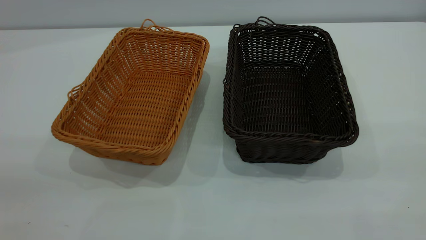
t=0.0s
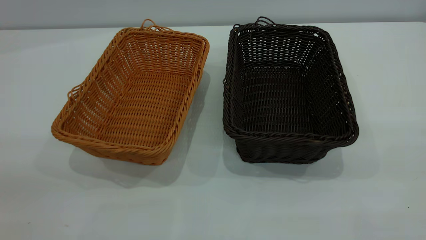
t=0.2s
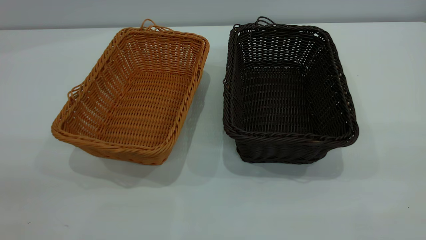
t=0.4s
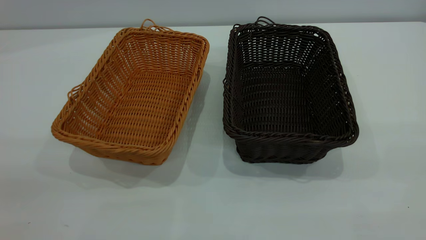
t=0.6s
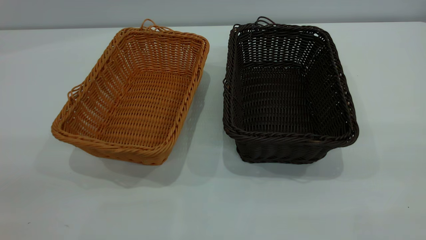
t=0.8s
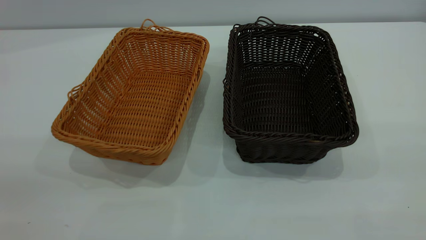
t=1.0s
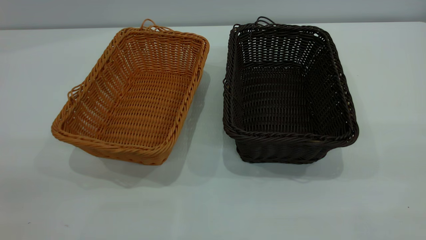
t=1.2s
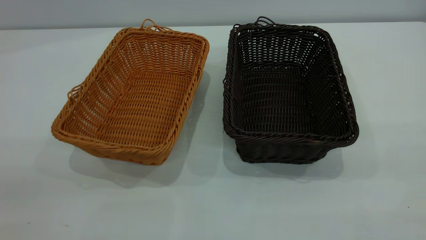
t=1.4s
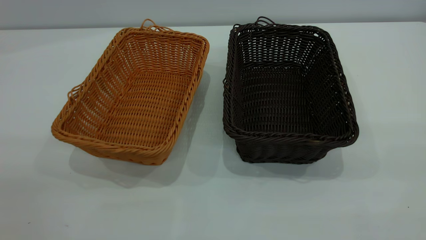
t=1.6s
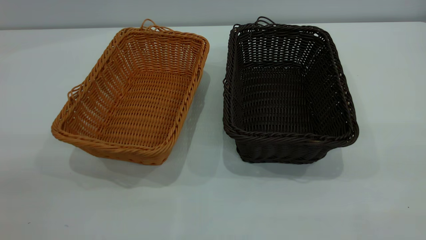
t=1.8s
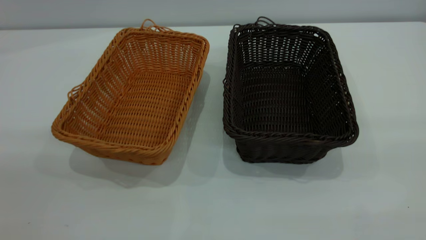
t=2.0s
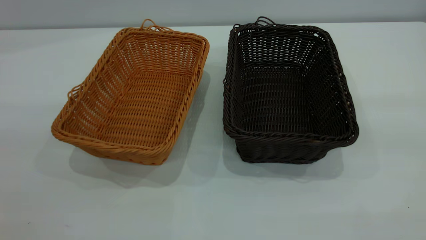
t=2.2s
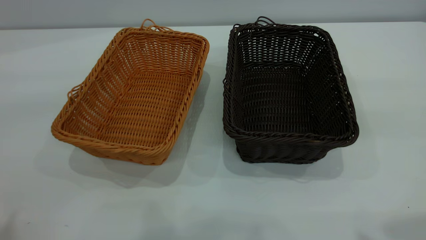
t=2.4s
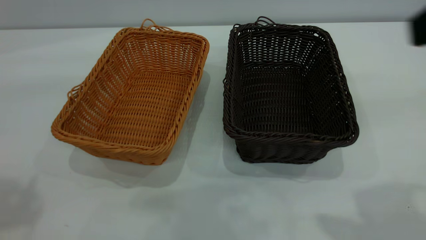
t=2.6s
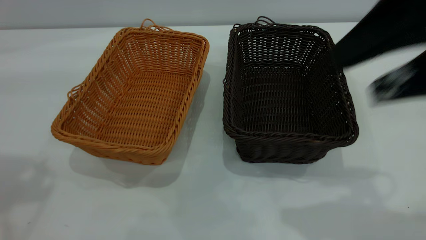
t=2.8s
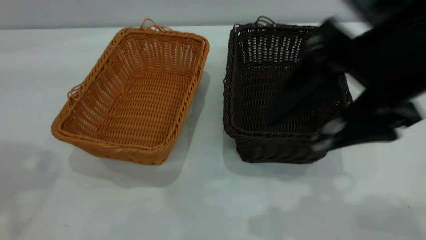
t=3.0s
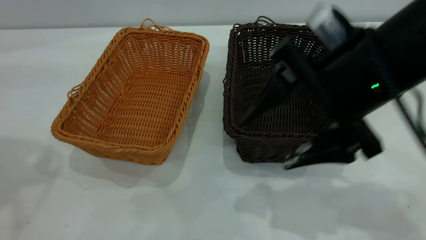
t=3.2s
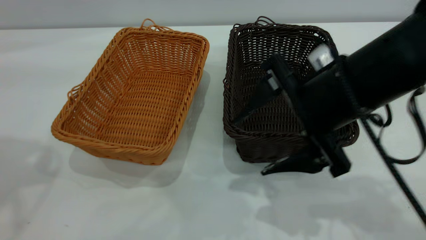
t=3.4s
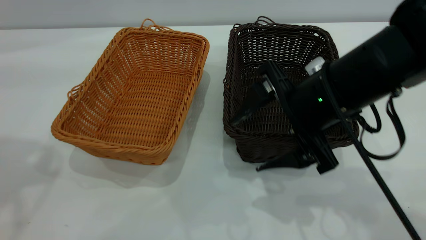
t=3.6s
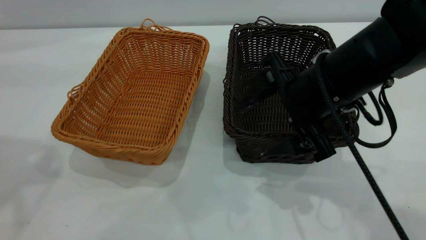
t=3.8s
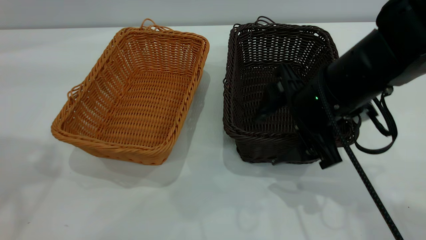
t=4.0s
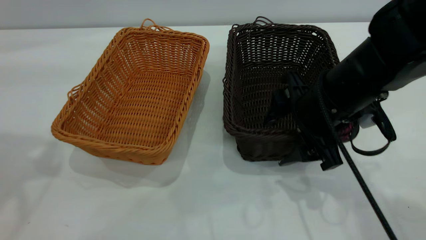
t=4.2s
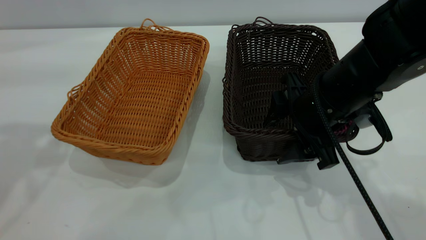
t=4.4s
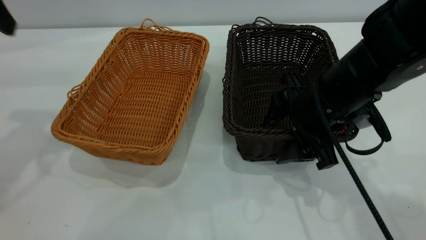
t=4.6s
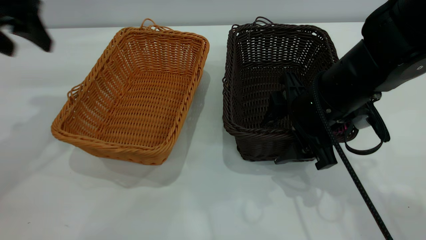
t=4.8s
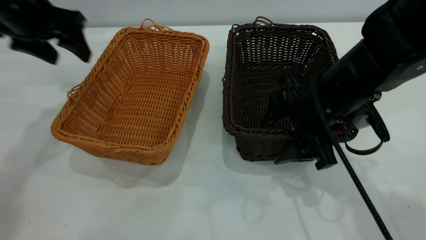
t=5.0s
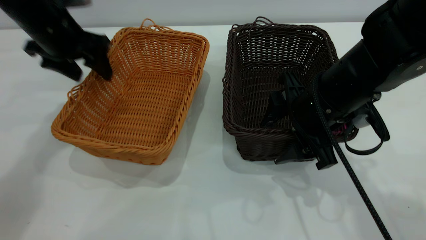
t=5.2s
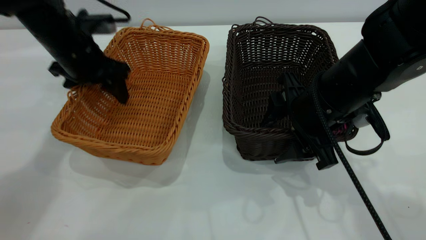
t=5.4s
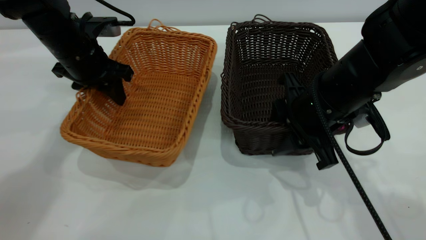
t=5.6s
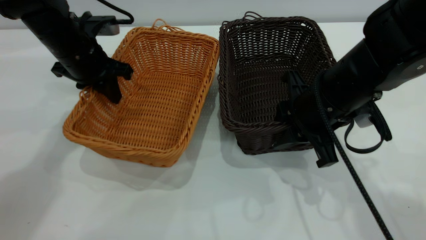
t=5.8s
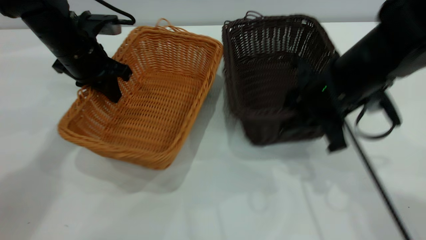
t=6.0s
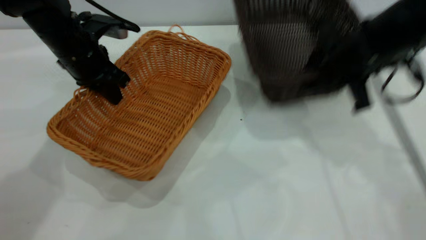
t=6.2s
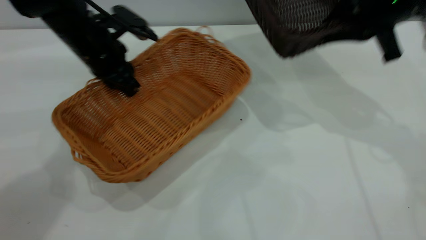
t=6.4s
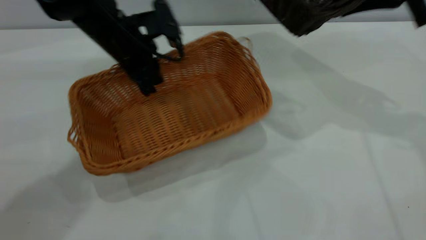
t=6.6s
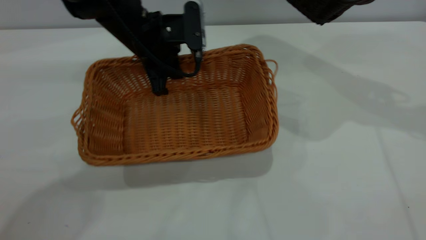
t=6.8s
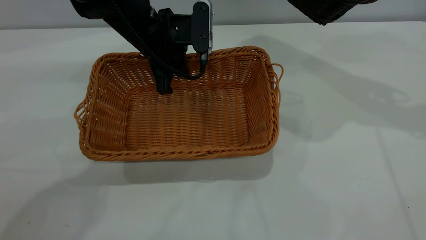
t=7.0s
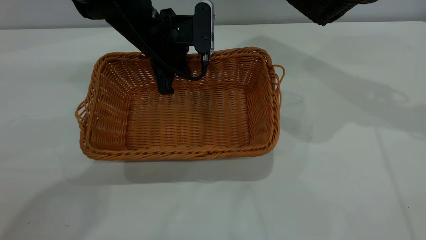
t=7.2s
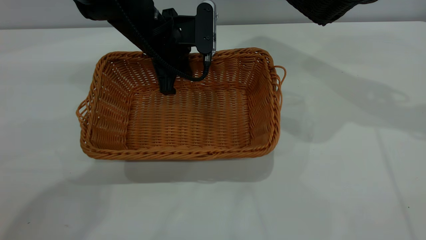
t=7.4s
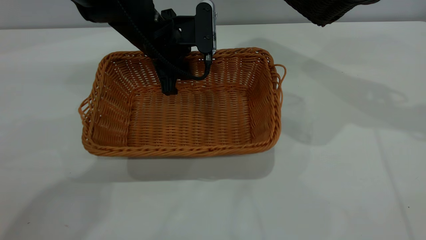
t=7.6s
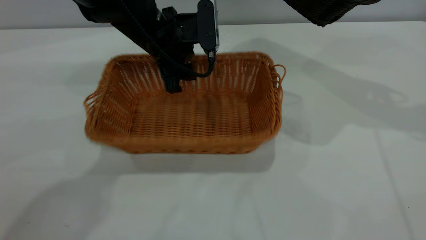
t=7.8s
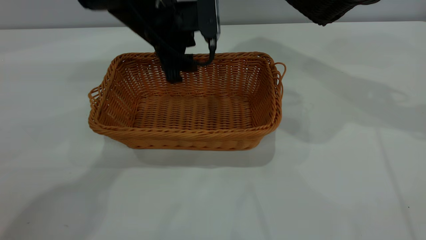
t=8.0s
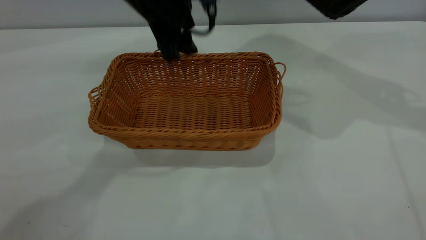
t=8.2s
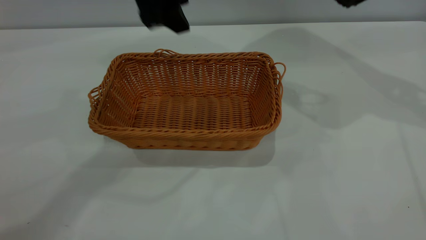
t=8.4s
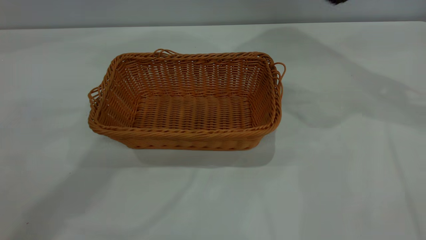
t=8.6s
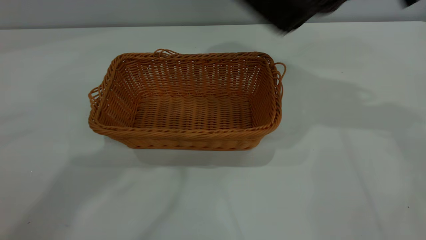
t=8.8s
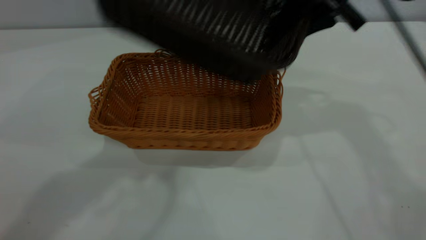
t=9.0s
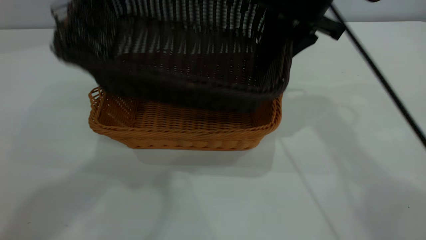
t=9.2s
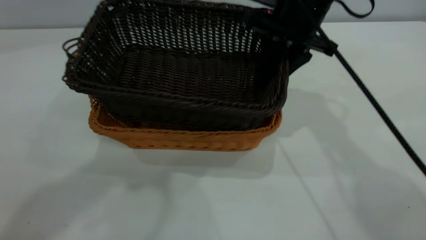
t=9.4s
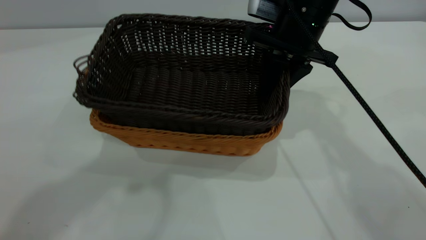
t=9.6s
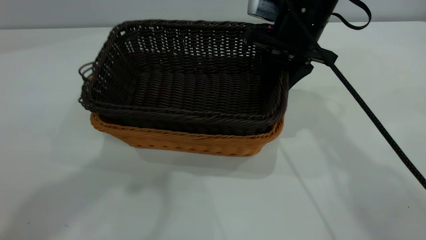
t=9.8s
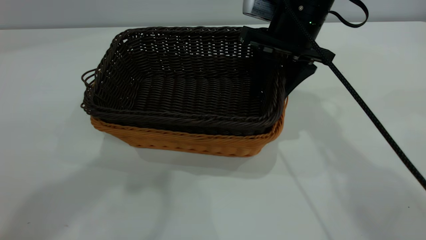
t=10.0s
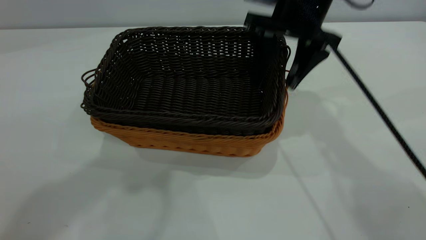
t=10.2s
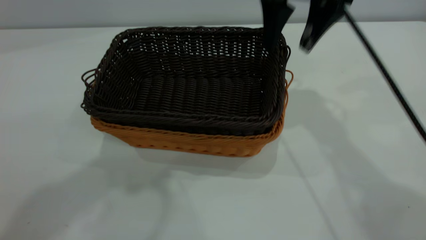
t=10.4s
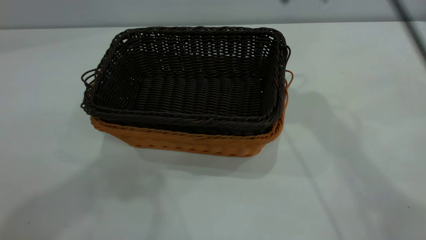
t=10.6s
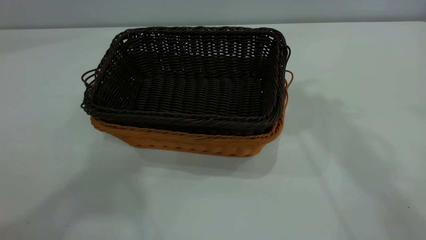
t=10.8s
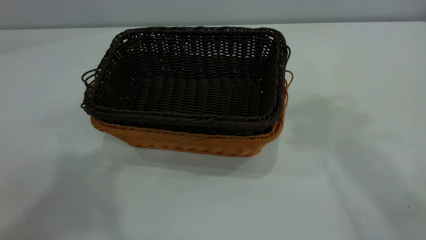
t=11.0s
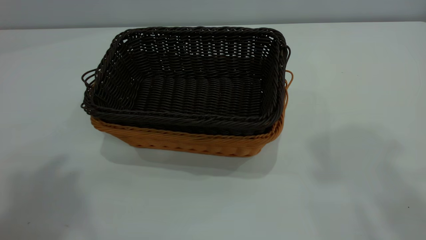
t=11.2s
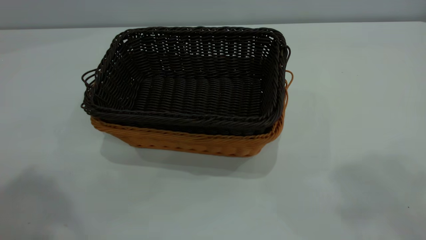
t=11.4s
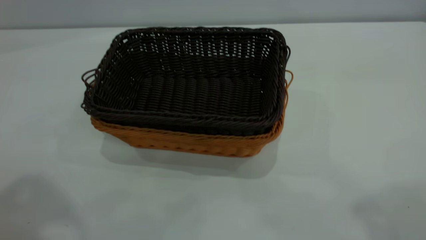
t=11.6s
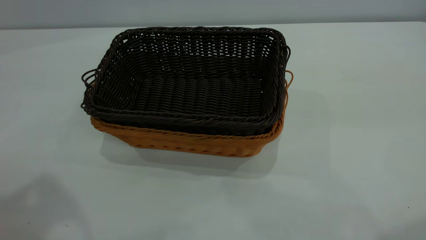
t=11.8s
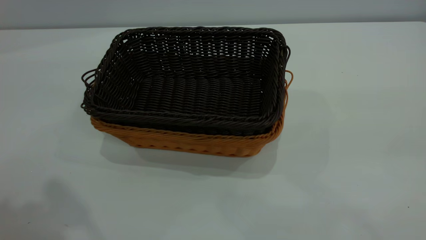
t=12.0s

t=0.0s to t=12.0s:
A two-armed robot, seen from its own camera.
Task of the whole recording: the left gripper grasp the brown basket and place it in the center of the table, the right gripper grasp the black basket and place it inside the brown one.
Step, t=0.0s to t=6.0s: Pick up the light basket with the right gripper.
Step, t=6.2s to t=8.2s: Place the light-colored basket in the center.
Step, t=8.4s to t=10.2s: Place the dark basket on top of the light basket.
t=0.0s to t=1.6s: The two grippers keep their place.
t=1.6s to t=3.0s: The right gripper goes some 30 cm forward, to the left and downward.
t=3.0s to t=4.4s: The right gripper is displaced downward and forward by about 15 cm; the left gripper changes place by roughly 5 cm.
t=4.4s to t=6.0s: The right gripper closes its fingers; the left gripper shifts roughly 25 cm downward, forward and to the right, and closes.
t=6.0s to t=7.6s: The left gripper moves to the right, about 15 cm, and opens its fingers. Meanwhile the right gripper shifts about 20 cm upward, to the right and forward.
t=7.6s to t=9.0s: The left gripper is displaced upward by roughly 35 cm; the right gripper heads to the left, covering approximately 15 cm.
t=9.0s to t=10.4s: The right gripper moves some 5 cm downward and comes back, and opens.
t=10.4s to t=12.0s: The right gripper travels backward and to the right by roughly 35 cm. Meanwhile the left gripper heads backward and to the left, covering roughly 15 cm.

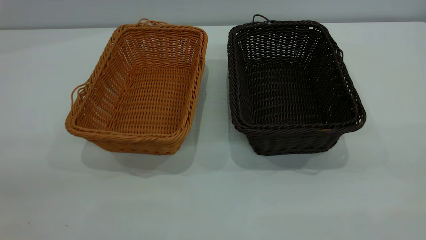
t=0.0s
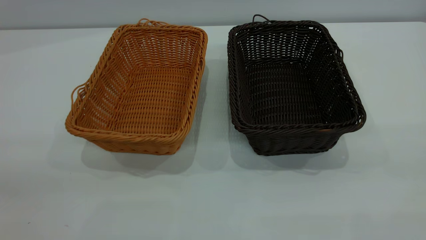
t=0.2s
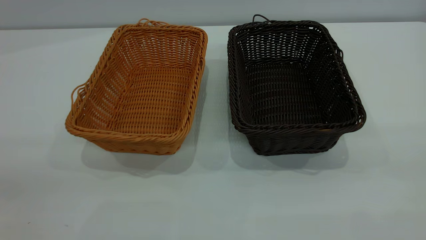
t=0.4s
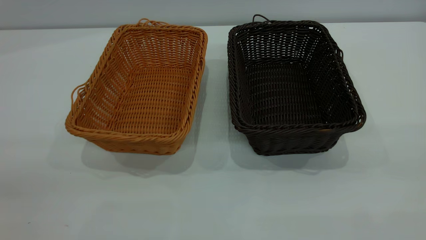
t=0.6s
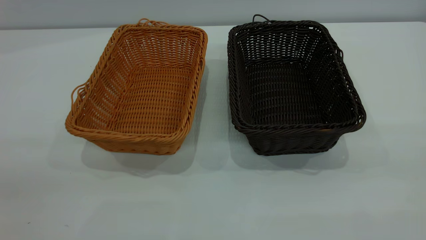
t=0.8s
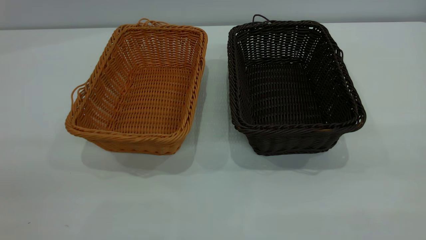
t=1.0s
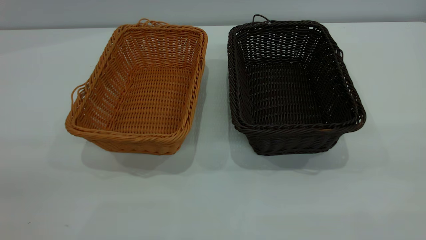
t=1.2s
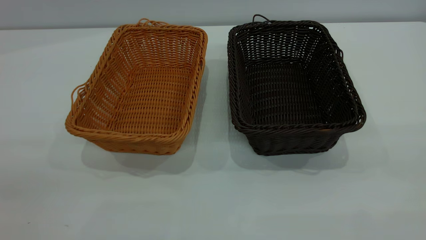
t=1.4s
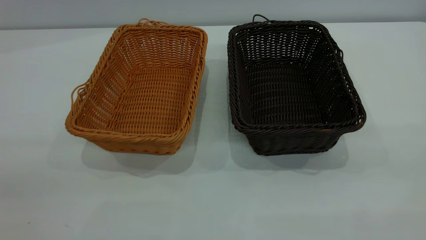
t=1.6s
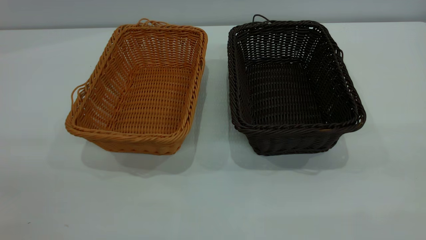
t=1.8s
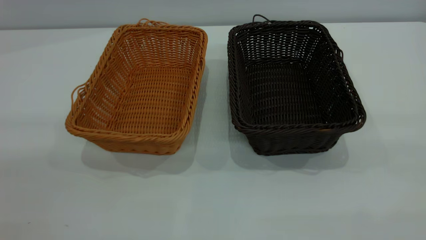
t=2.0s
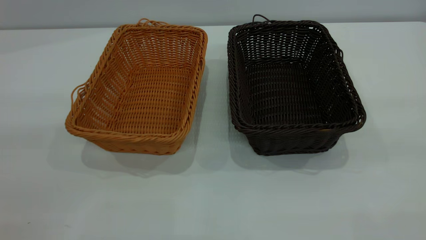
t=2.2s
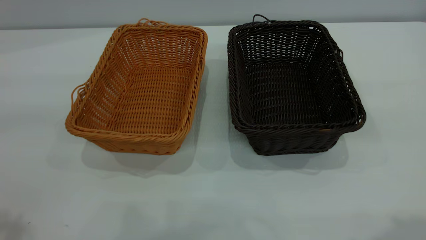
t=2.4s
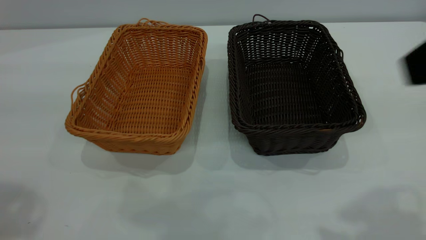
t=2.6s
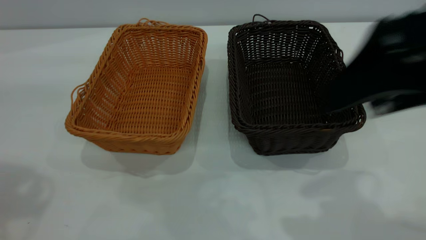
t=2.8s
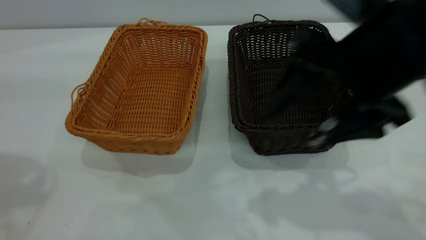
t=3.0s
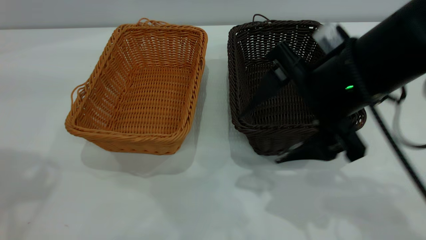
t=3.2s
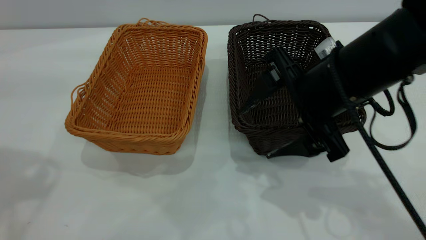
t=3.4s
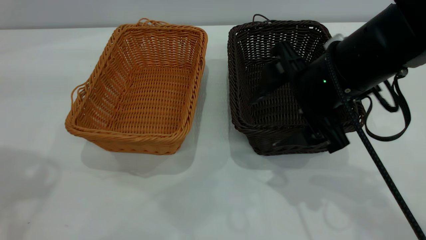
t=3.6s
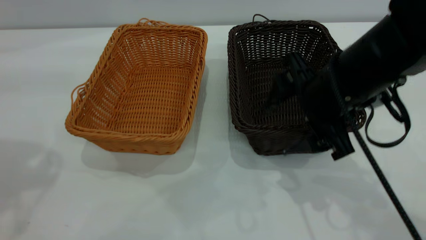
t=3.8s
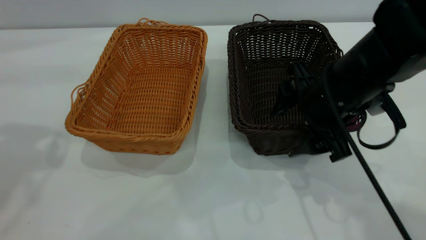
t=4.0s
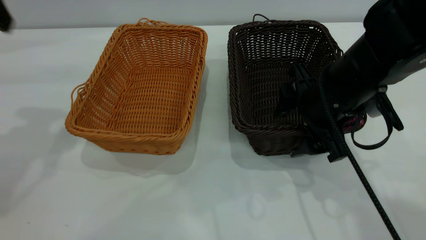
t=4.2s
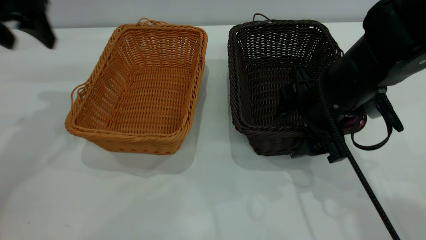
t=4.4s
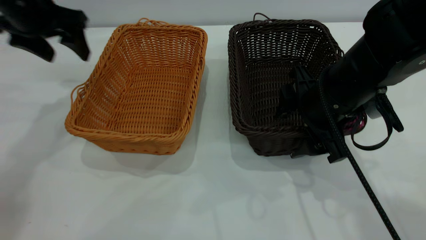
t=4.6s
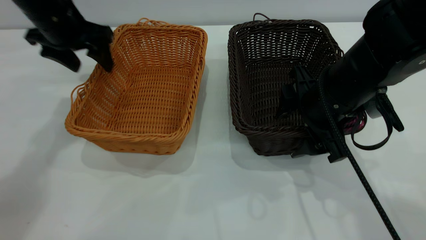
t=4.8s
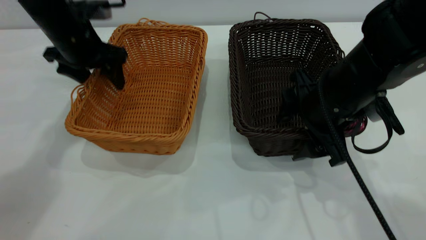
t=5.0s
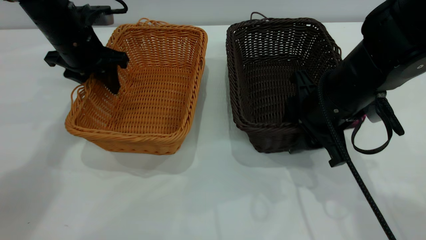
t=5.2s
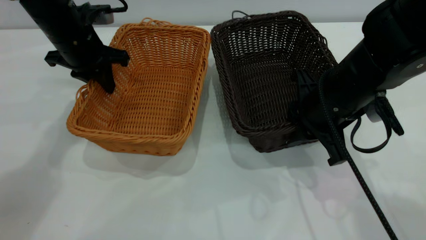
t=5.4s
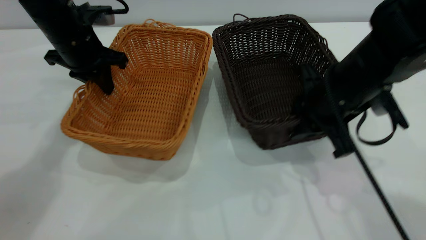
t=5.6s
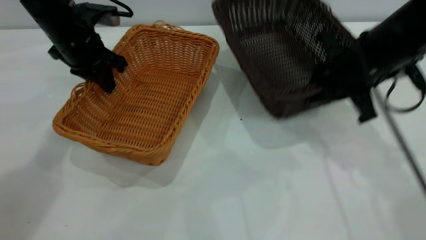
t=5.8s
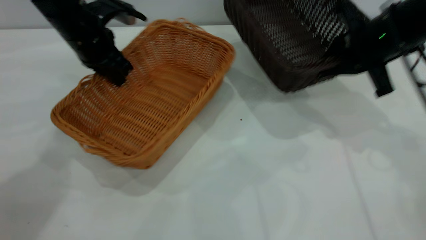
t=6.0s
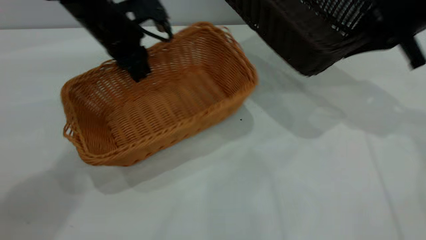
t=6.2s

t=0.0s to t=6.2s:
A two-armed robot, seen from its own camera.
Task of the whole recording: the left gripper grasp the brown basket and place it in the center of the table, the right gripper grasp the black basket and place it inside the brown one.
Step, t=0.0s to t=5.6s: Pick up the light basket with the right gripper.
t=0.0s to t=1.6s: Both grippers stay about where they are.
t=1.6s to t=3.2s: The right gripper moves forward, downward and to the left, roughly 35 cm.
t=3.2s to t=4.6s: The left gripper is displaced forward and downward by roughly 25 cm. The right gripper moves downward, about 5 cm.
t=4.6s to t=6.2s: The right gripper travels to the right, forward and upward by some 20 cm, and closes its fingers, while the left gripper travels to the right by some 10 cm, and closes its fingers.
